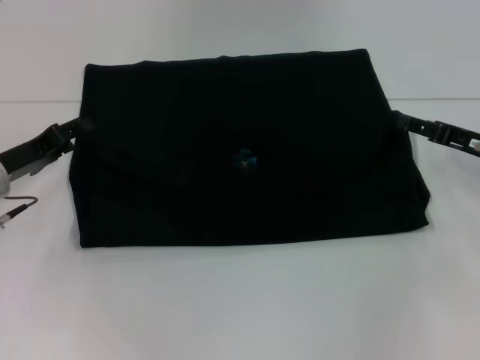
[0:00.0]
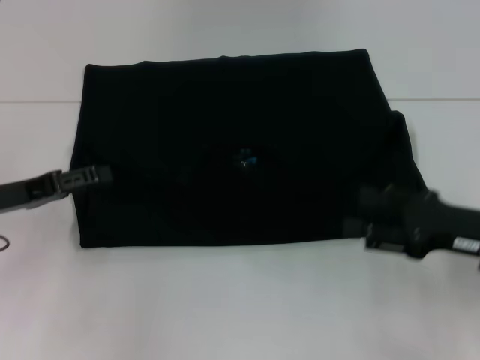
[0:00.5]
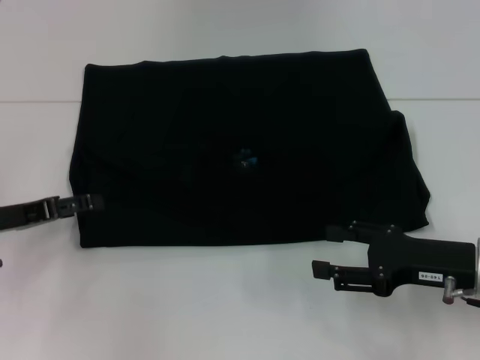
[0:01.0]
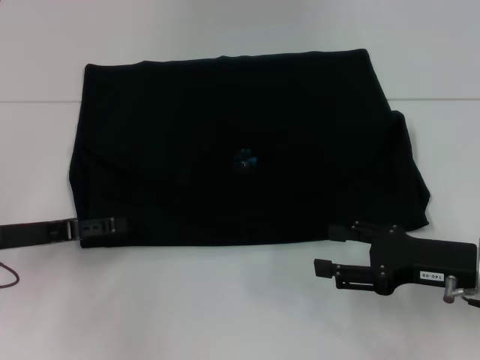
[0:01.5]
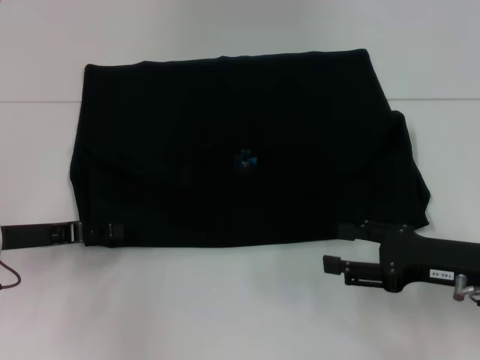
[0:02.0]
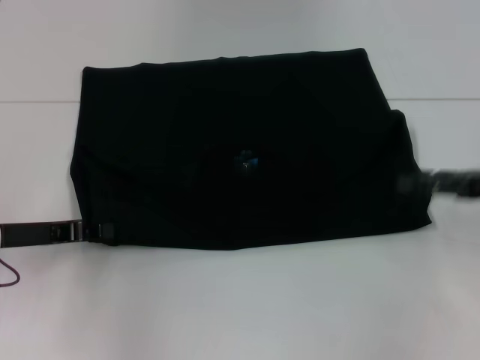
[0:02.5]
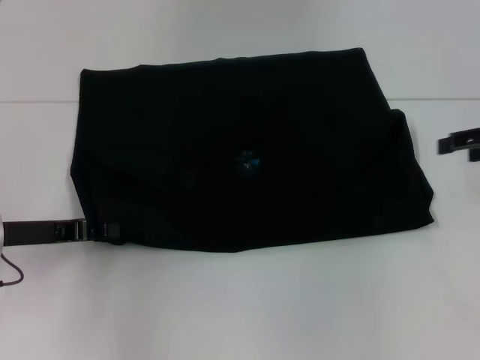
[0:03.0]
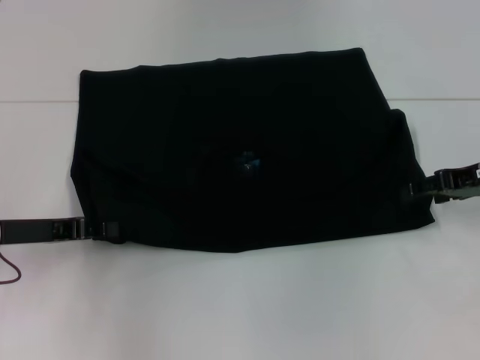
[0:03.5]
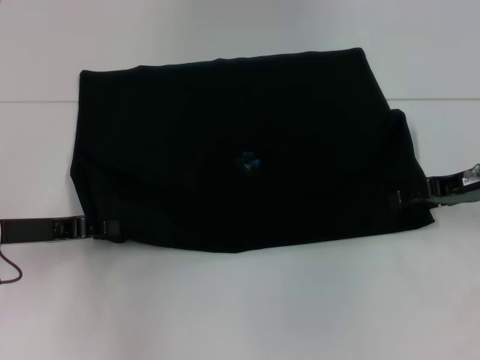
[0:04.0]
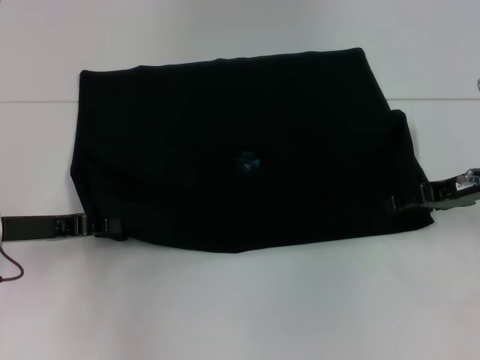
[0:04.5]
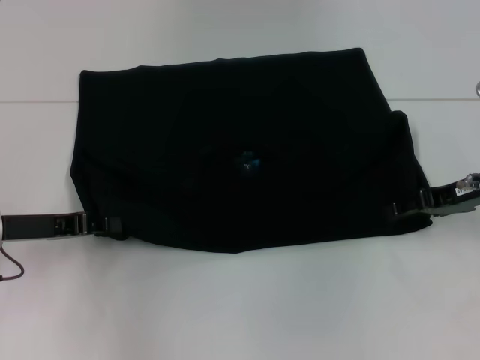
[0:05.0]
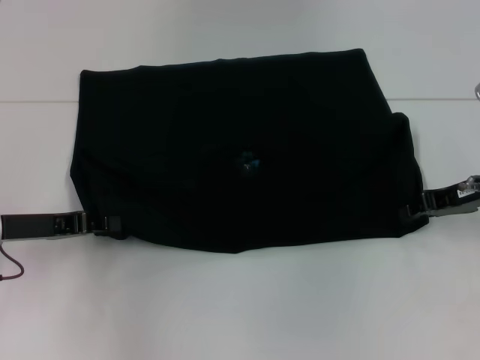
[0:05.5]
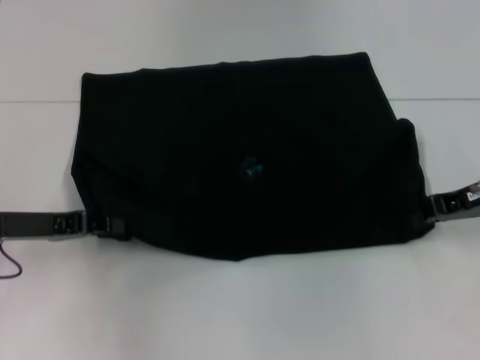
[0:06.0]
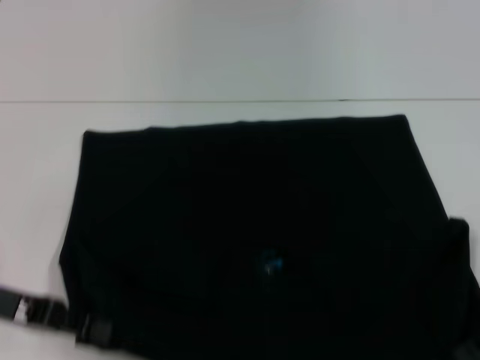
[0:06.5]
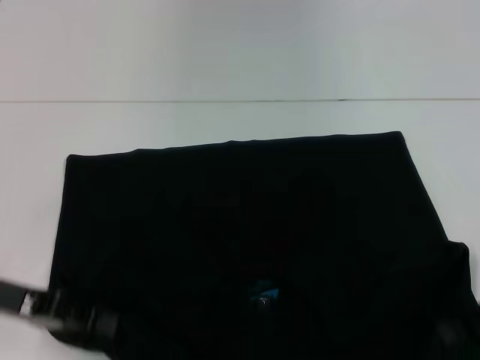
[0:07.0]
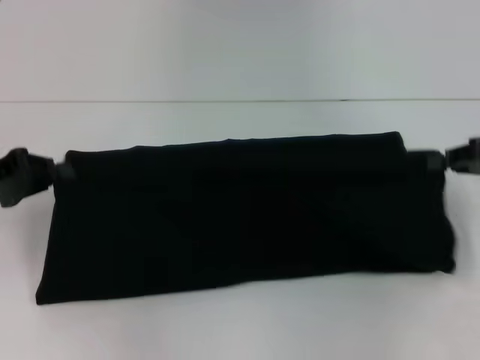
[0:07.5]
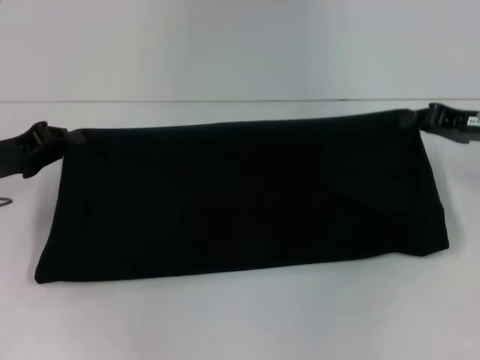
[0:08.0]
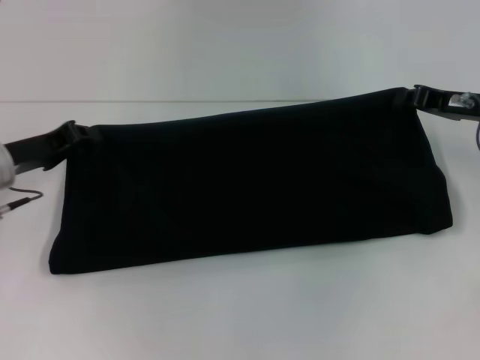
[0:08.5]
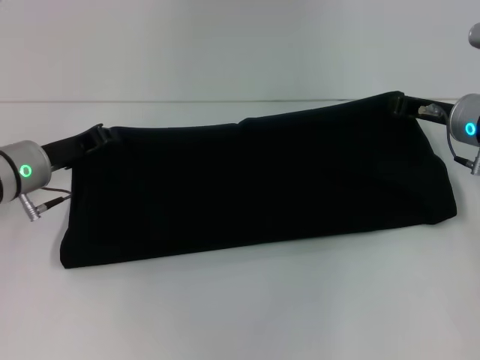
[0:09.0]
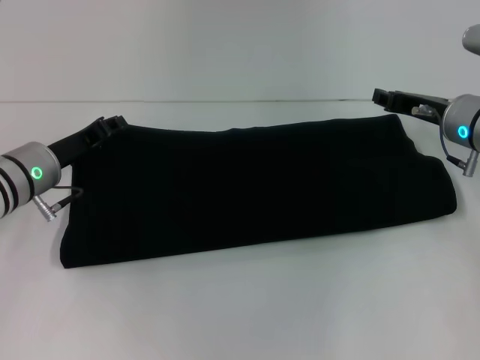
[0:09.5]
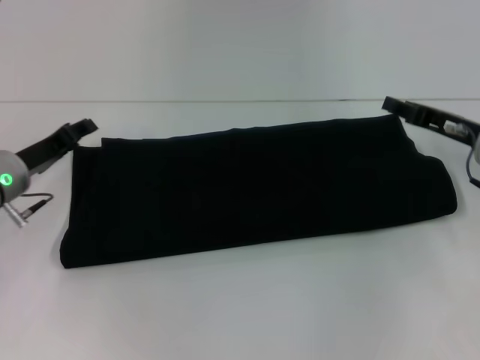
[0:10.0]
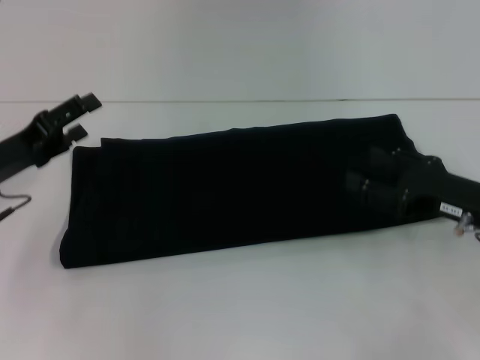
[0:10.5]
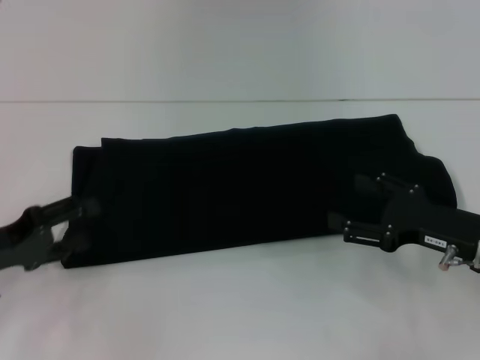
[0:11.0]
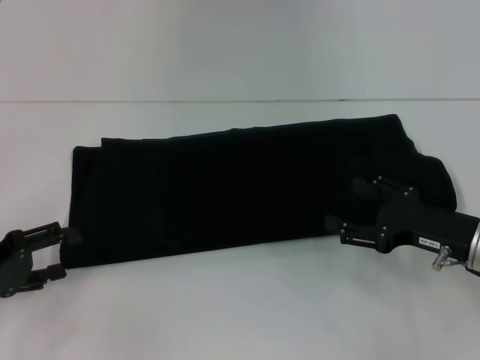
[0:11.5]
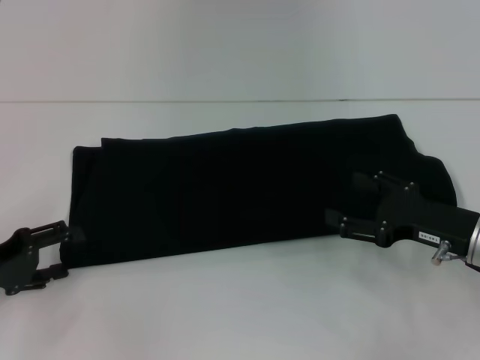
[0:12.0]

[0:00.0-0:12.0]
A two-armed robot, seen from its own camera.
Step, 0:00.0 to 0:06.5: Pull the clothes with your left hand.
Step, 0:00.0 to 0:06.5: Pull the clothes with your right hand.
Step, 0:07.0 to 0:10.0: Fold the clothes with your right hand.
0:00.0 to 0:02.0: The right gripper travels backward by about 10 cm, and opens up.
0:02.0 to 0:04.0: The right gripper heads forward and upward, covering approximately 10 cm. The left gripper closes.
0:04.0 to 0:06.0: The right gripper closes up.
0:06.0 to 0:08.0: The right gripper reaches roughly 10 cm backward, then returns.
0:08.0 to 0:10.0: The right gripper opens up. The left gripper shifts by approximately 5 cm, and opens up.
0:10.0 to 0:12.0: The right gripper is displaced backward by roughly 10 cm, and opens up. Meanwhile the left gripper goes approximately 15 cm backward and to the left, and opens up.

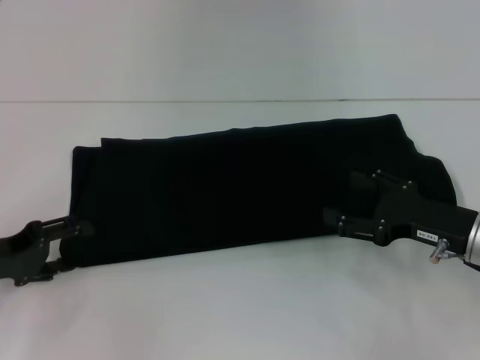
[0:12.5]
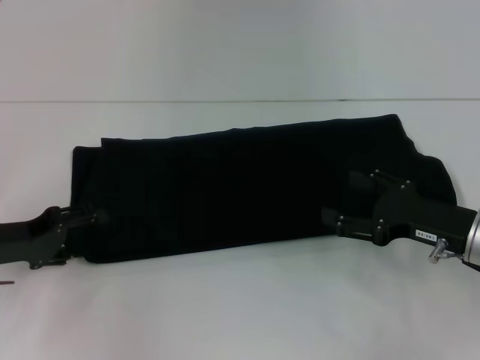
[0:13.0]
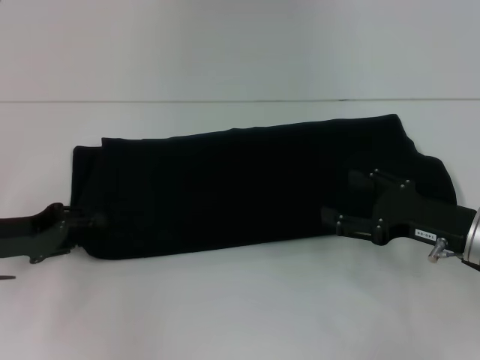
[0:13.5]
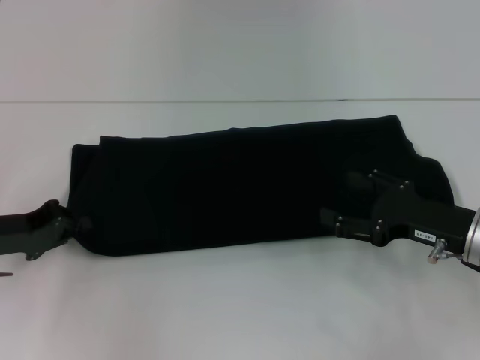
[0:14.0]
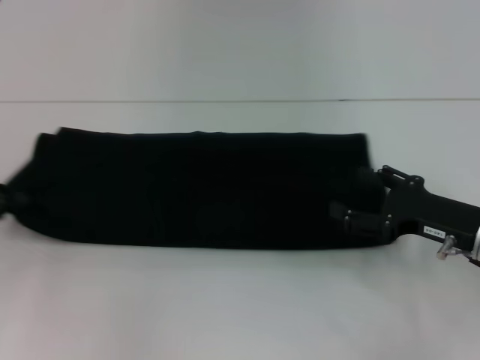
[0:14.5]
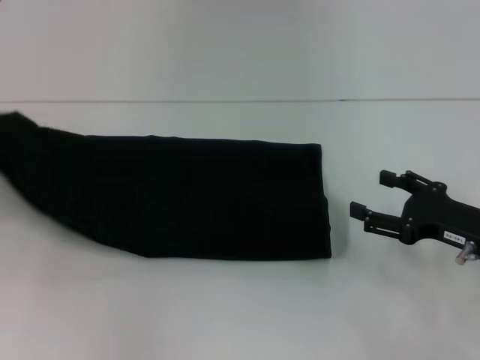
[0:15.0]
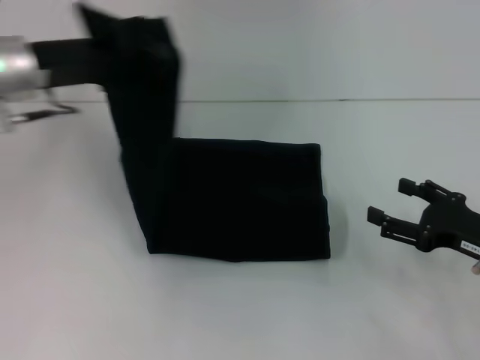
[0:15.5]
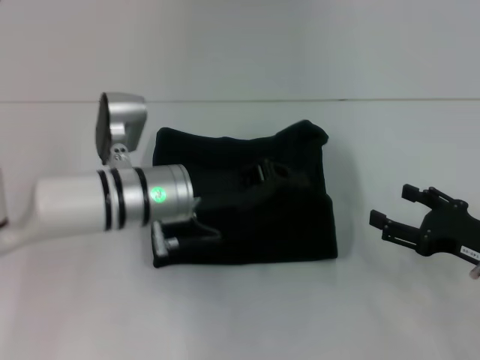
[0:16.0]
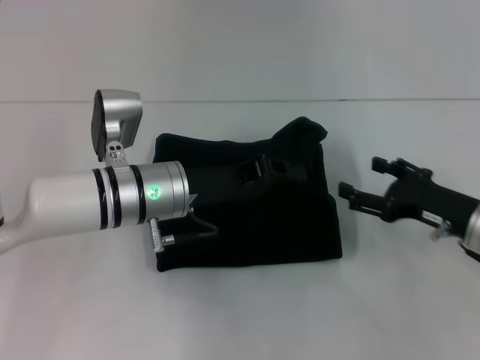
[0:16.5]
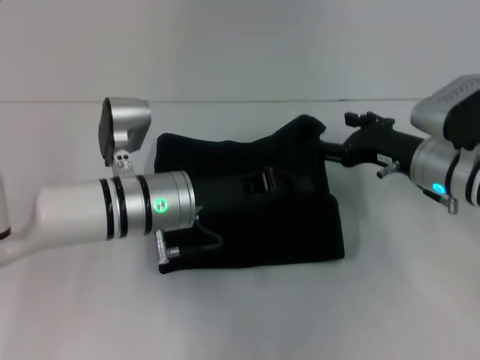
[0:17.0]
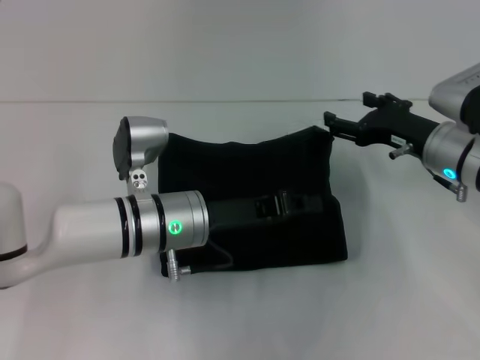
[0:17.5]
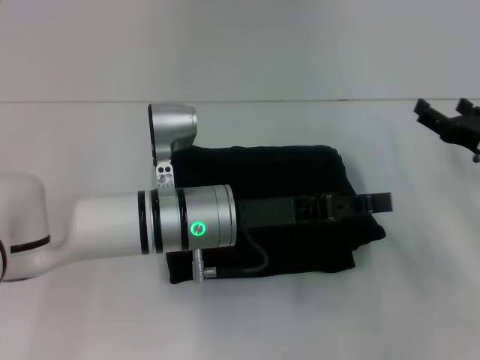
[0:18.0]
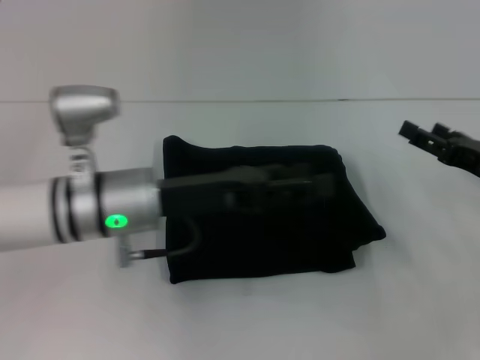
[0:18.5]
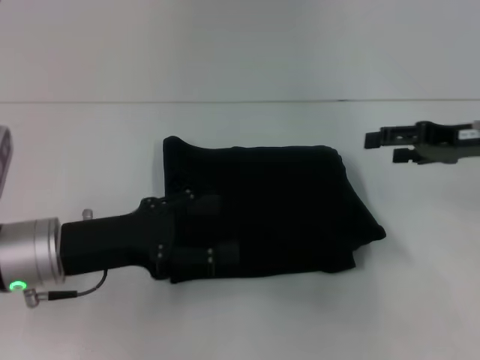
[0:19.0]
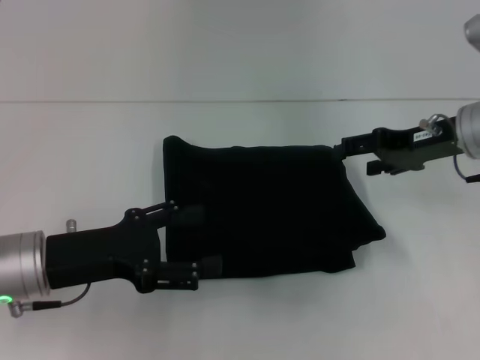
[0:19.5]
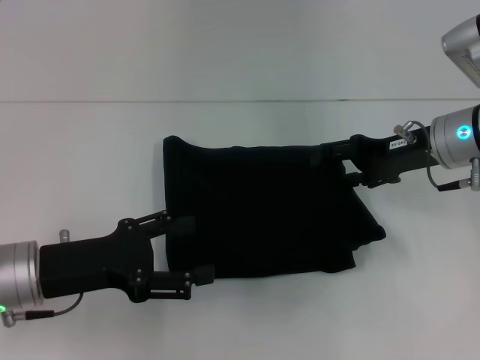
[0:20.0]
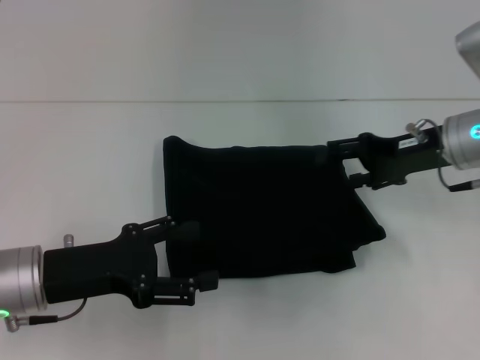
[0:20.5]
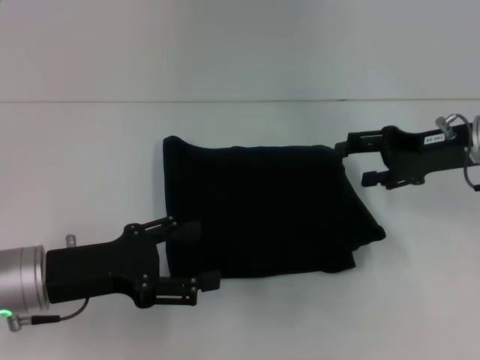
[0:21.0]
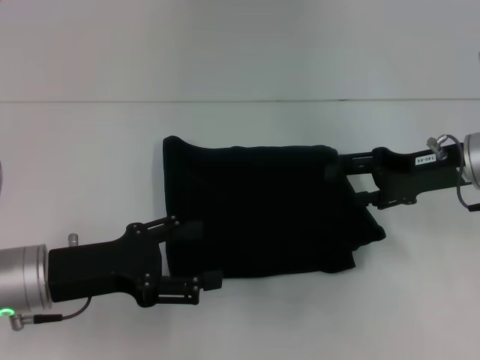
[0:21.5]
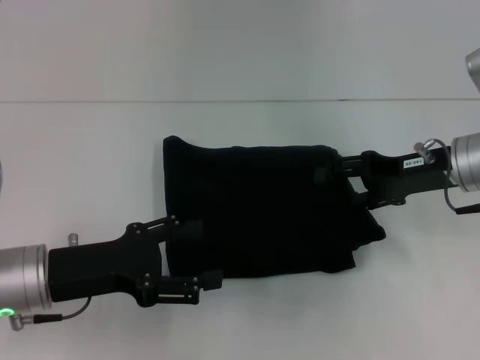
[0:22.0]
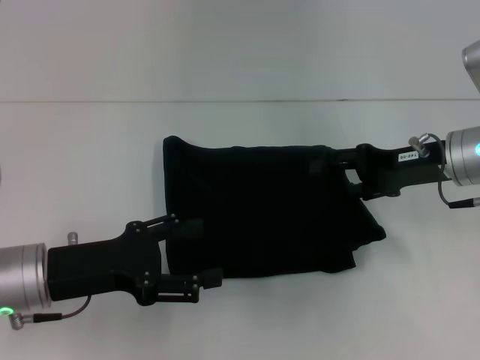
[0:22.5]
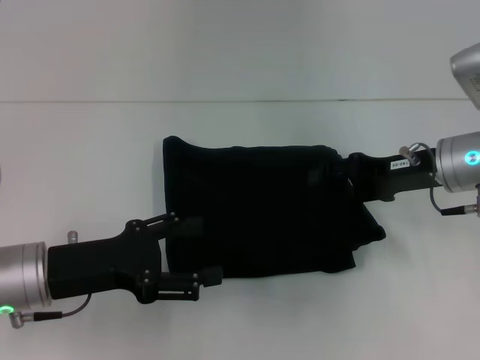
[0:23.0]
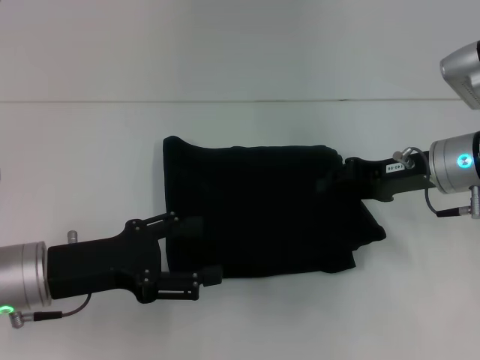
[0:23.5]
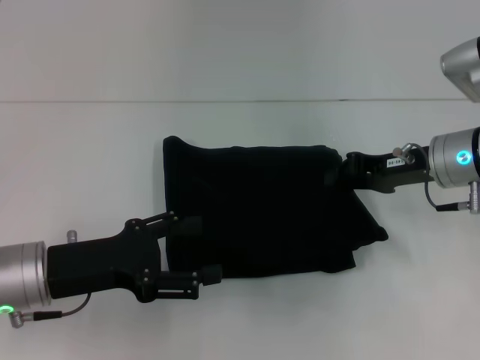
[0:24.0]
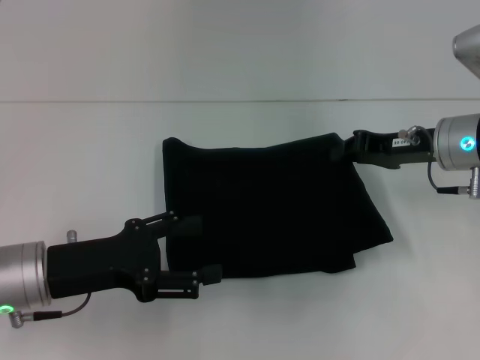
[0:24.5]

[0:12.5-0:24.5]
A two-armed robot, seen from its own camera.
Step, 0:12.5 to 0:16.5: Fold the clothes with your left hand.
0:12.5 to 0:14.5: The left gripper ends up roughly 5 cm from where it was, and closes up.
0:14.5 to 0:16.5: The left gripper goes about 25 cm to the right.
0:16.5 to 0:18.5: The left gripper opens up.
0:18.5 to 0:20.5: The right gripper is displaced to the left, forward and upward by approximately 10 cm. Meanwhile the left gripper is displaced to the left and backward by approximately 10 cm.
0:20.5 to 0:22.5: There are only small adjustments of the grippers.
0:22.5 to 0:24.5: The right gripper closes up.

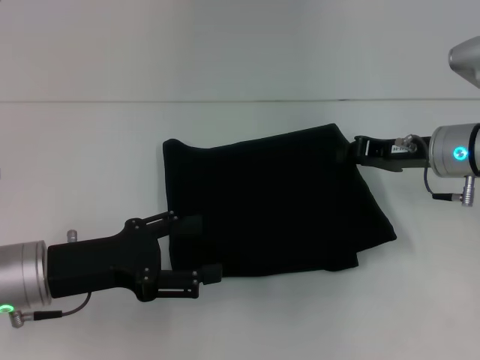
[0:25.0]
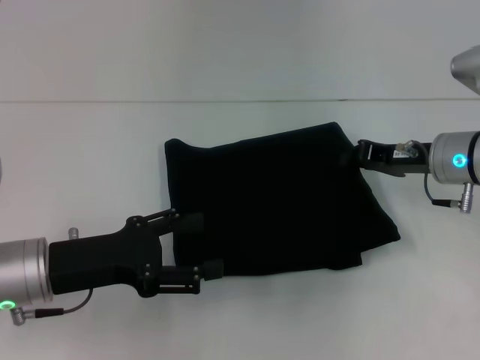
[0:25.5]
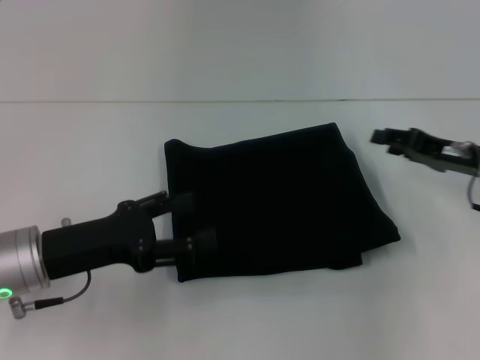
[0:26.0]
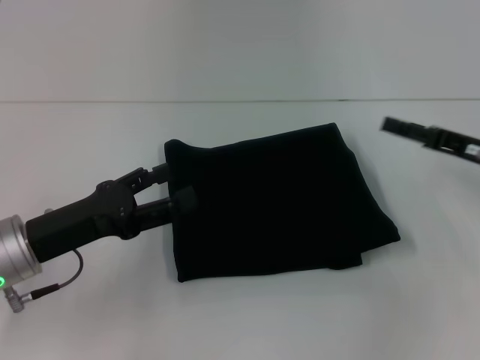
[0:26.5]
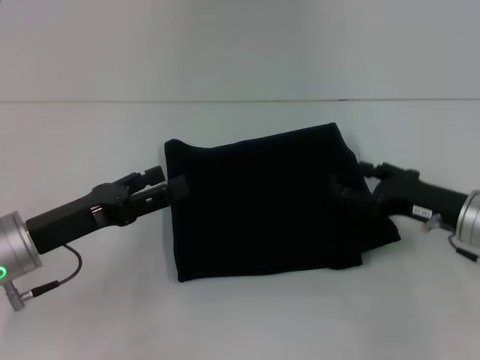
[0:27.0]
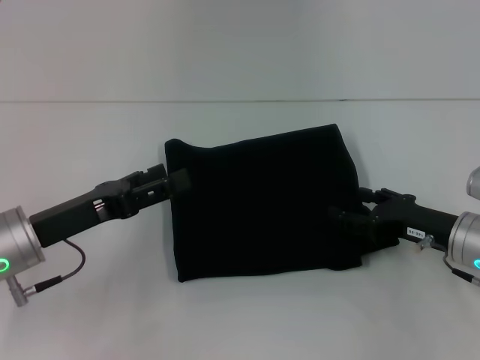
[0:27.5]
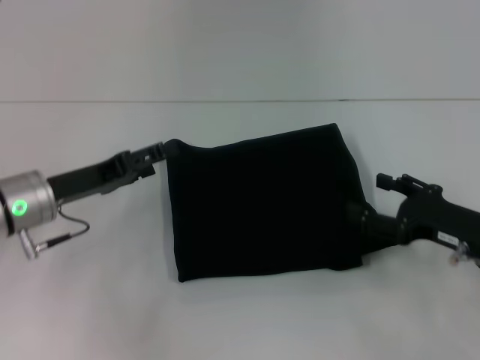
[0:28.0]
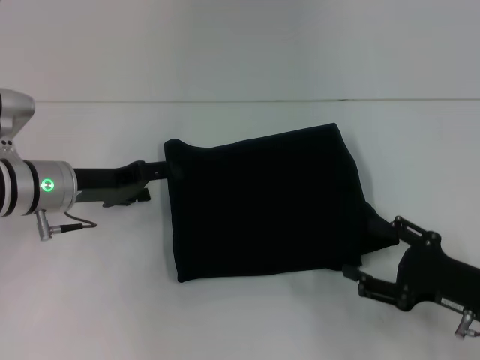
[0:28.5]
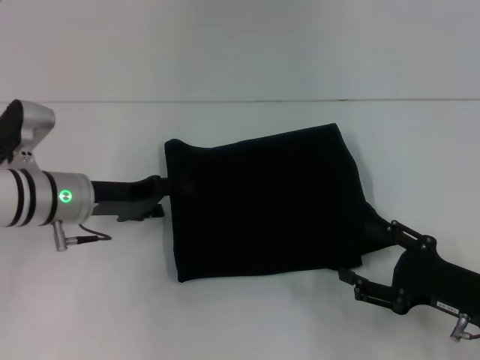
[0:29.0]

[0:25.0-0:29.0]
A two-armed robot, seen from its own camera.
0:25.0 to 0:27.0: The right gripper heads backward, covering about 5 cm, and opens its fingers.
0:27.0 to 0:29.0: The right gripper goes some 10 cm backward. Meanwhile the left gripper moves forward, some 10 cm.
